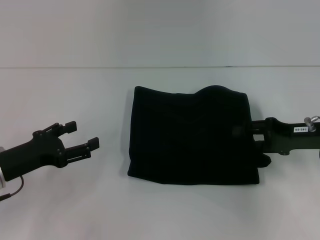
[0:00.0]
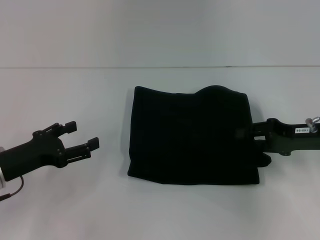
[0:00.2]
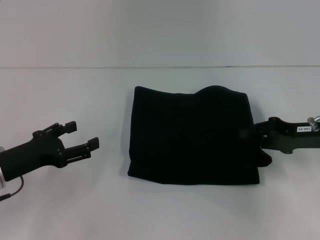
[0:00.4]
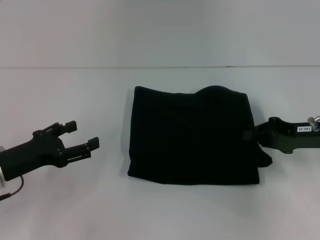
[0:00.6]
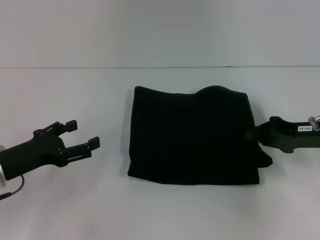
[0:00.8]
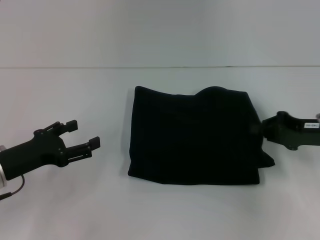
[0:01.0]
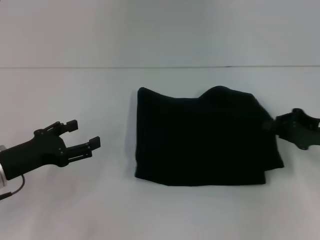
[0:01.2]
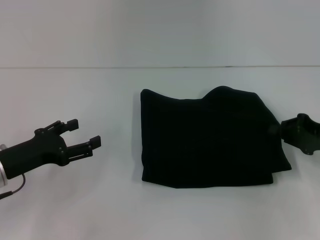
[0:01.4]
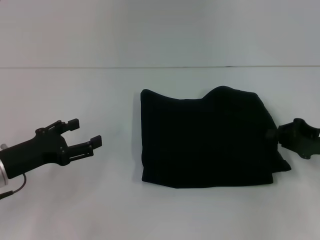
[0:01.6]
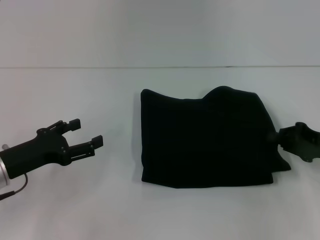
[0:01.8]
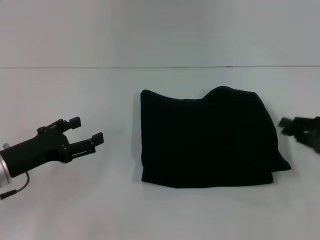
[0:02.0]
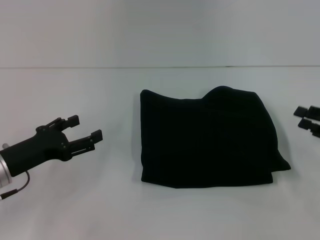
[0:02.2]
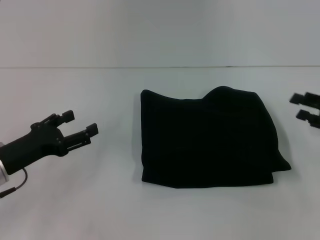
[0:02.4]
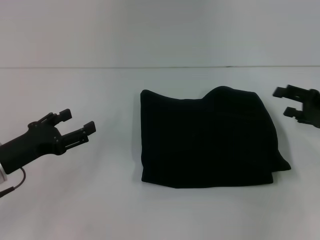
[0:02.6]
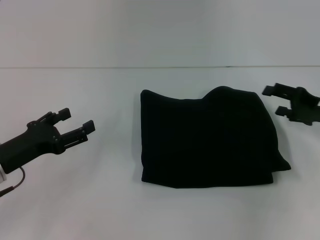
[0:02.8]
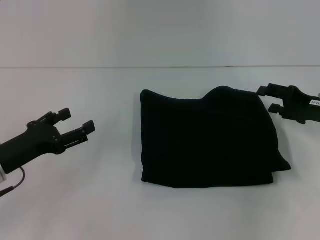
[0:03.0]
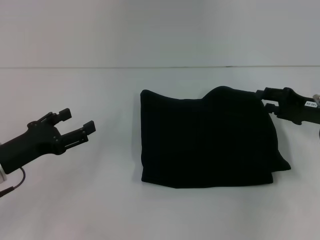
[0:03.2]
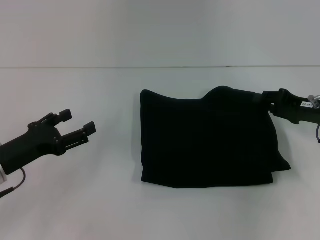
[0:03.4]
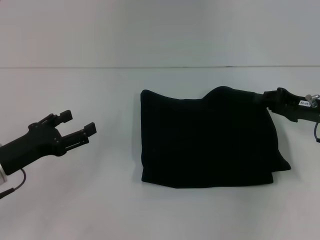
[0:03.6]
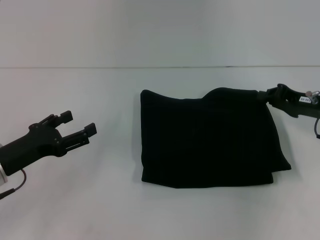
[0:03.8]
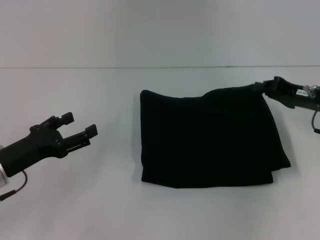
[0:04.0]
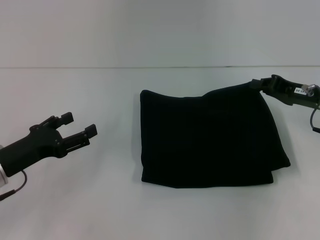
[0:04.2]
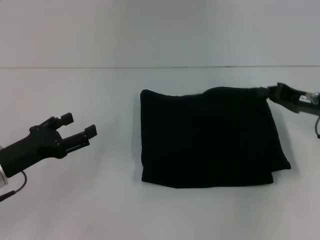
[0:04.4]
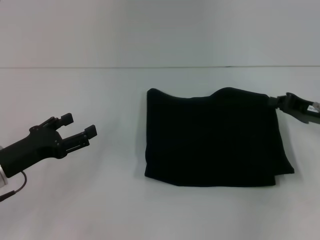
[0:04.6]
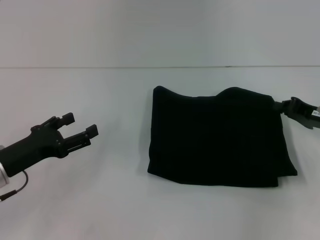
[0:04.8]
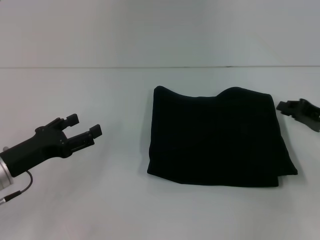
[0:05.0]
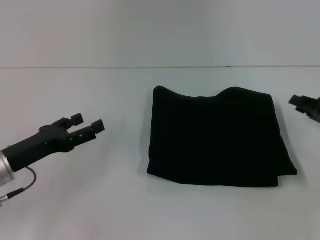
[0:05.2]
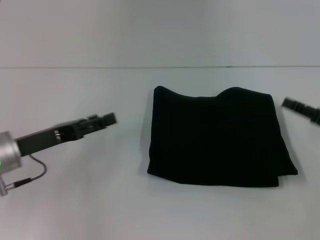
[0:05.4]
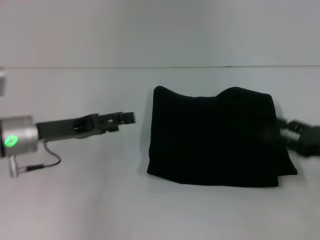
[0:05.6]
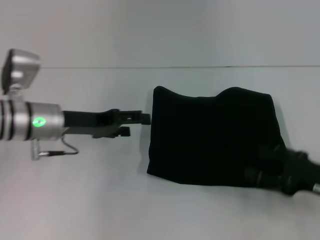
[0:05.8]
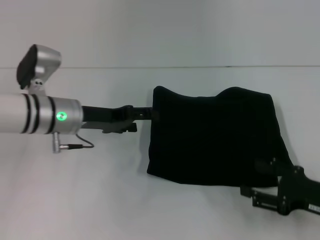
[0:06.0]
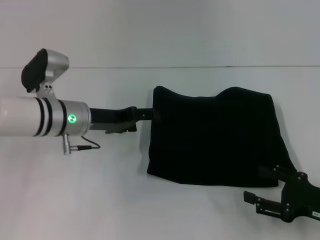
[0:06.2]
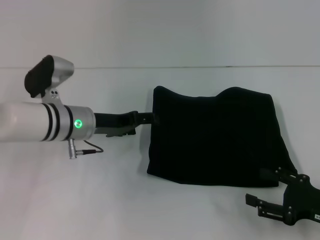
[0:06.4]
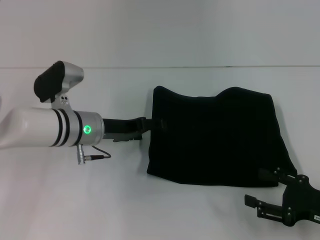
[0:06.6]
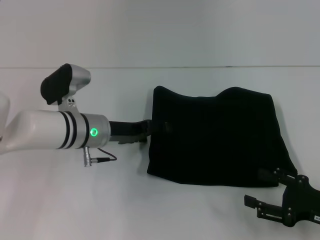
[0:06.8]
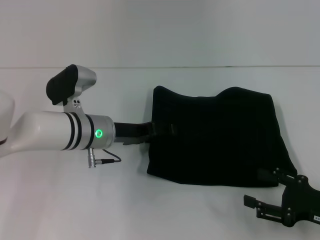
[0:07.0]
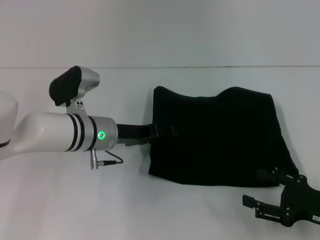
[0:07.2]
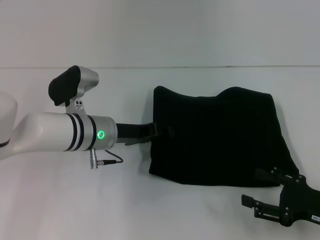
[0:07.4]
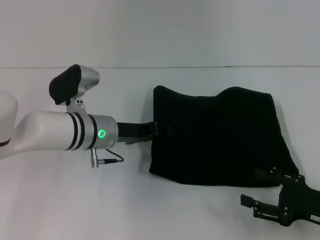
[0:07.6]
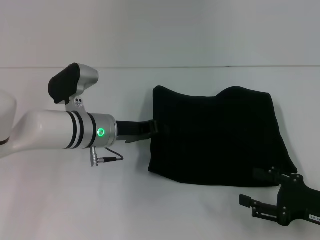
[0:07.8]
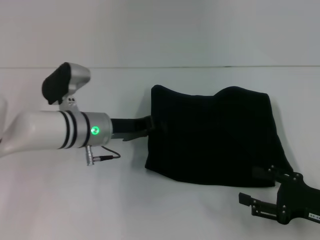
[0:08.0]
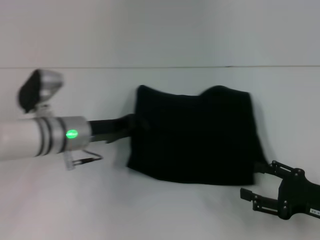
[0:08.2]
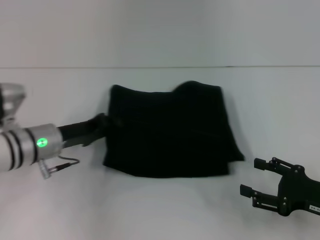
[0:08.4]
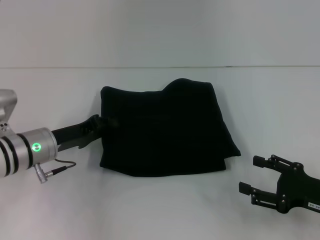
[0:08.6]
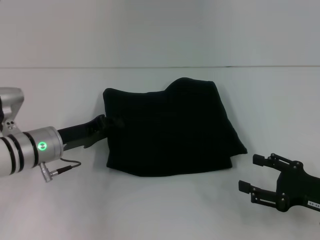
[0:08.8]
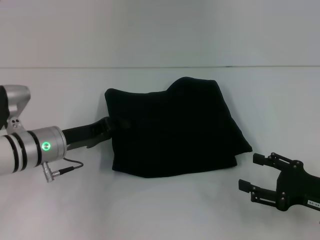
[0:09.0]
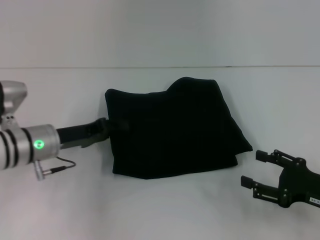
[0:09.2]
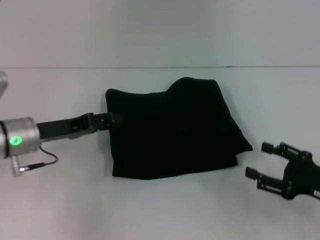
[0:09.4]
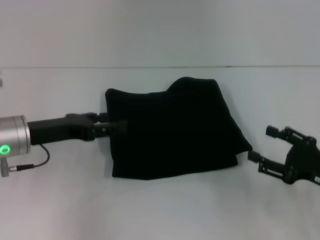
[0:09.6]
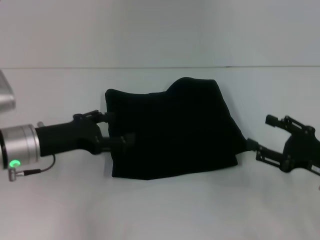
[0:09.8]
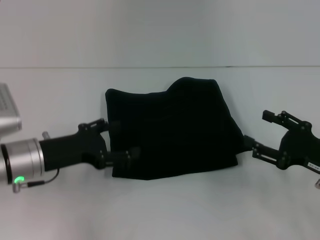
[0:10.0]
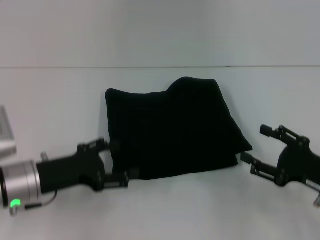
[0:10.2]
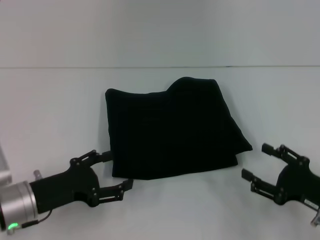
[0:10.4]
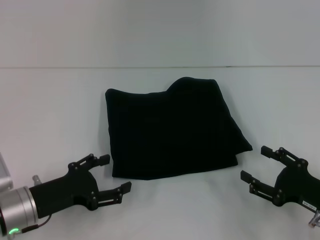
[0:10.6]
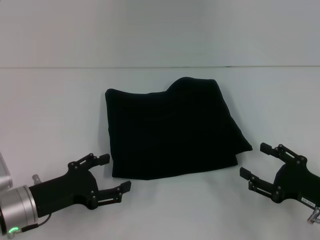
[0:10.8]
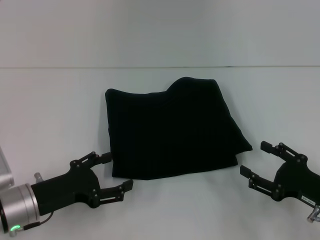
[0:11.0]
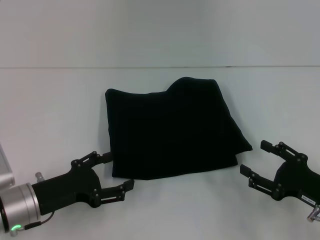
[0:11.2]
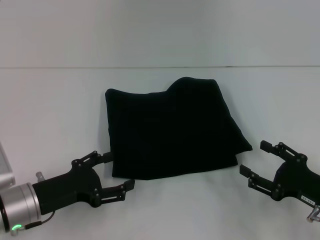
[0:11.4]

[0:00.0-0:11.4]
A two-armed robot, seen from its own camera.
0:00.0 to 0:01.4: The right gripper closes its fingers.
0:01.4 to 0:02.8: The right gripper opens.
0:02.8 to 0:04.2: The right gripper closes up.
0:04.2 to 0:05.6: The right gripper travels backward by approximately 10 cm, and opens up. The left gripper moves forward, about 5 cm.
0:05.6 to 0:07.2: The right gripper is displaced backward by about 5 cm, and opens. Meanwhile the left gripper heads to the right, covering approximately 10 cm.
0:07.2 to 0:08.6: The left gripper goes about 10 cm to the left, and closes its fingers.
0:08.6 to 0:10.0: The left gripper opens its fingers.
0:10.0 to 0:11.4: The left gripper is displaced backward by some 5 cm; the right gripper shifts by approximately 5 cm.

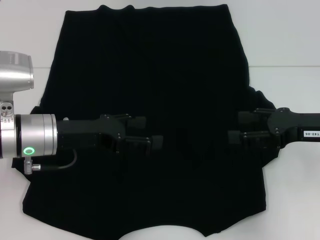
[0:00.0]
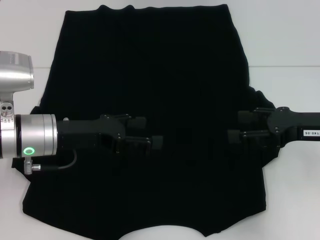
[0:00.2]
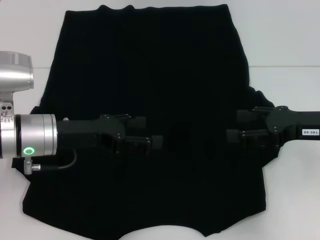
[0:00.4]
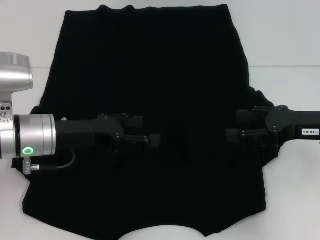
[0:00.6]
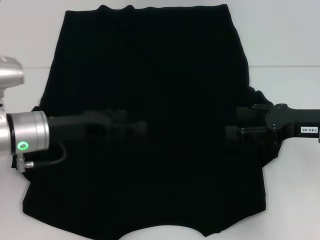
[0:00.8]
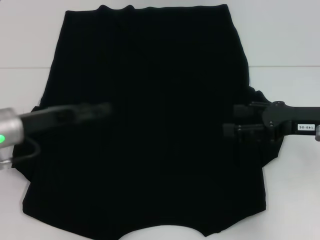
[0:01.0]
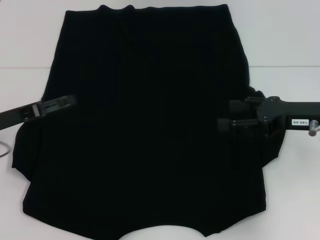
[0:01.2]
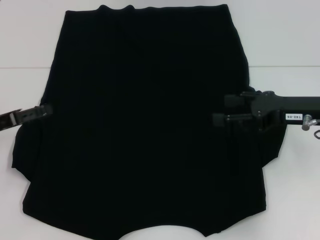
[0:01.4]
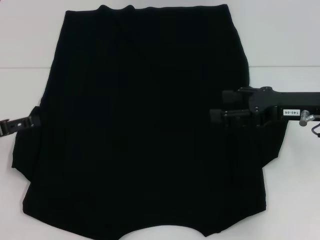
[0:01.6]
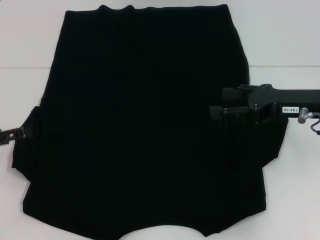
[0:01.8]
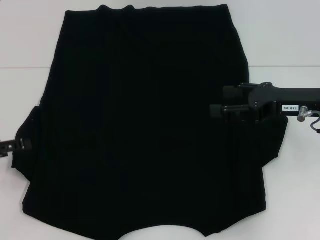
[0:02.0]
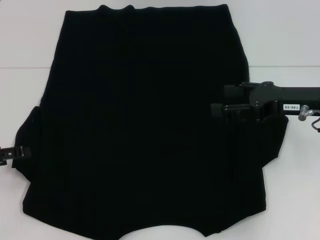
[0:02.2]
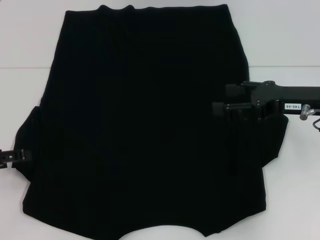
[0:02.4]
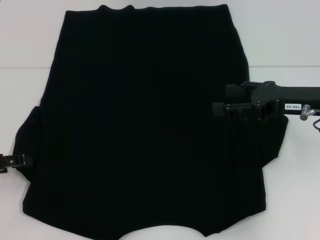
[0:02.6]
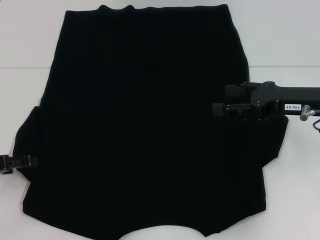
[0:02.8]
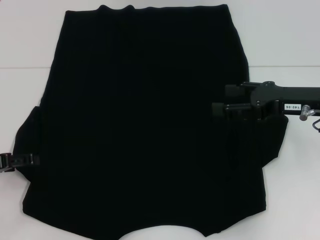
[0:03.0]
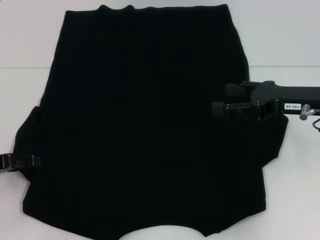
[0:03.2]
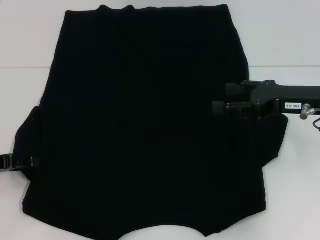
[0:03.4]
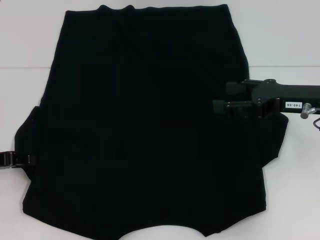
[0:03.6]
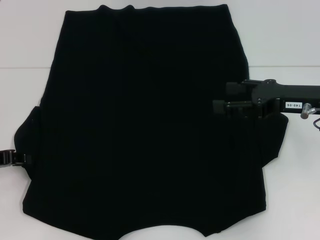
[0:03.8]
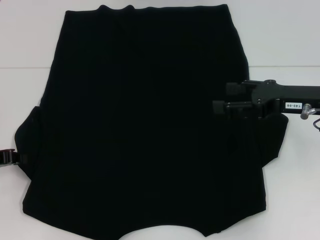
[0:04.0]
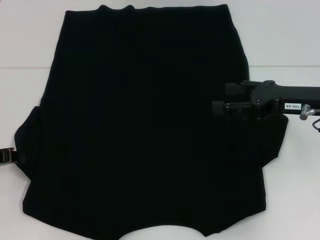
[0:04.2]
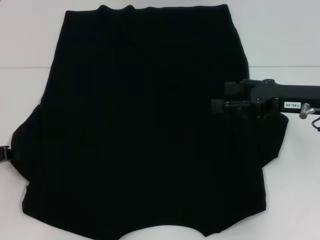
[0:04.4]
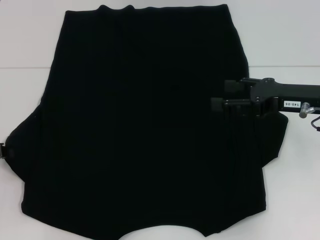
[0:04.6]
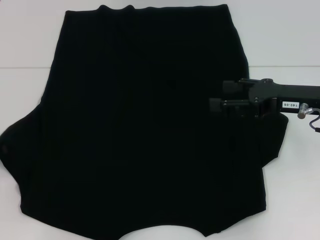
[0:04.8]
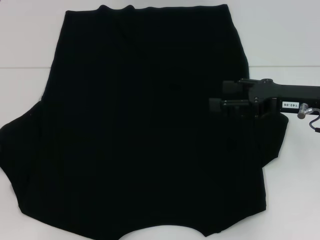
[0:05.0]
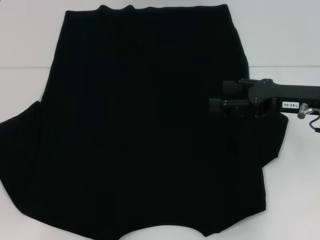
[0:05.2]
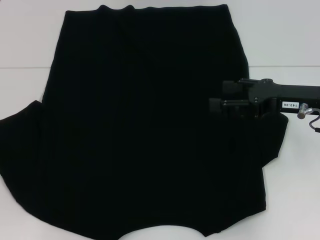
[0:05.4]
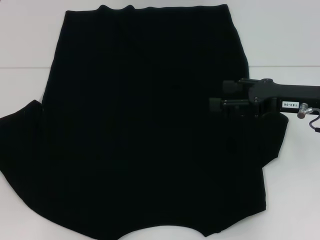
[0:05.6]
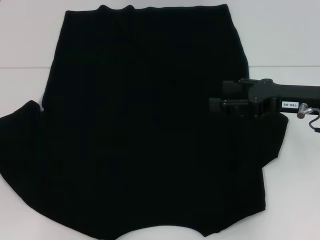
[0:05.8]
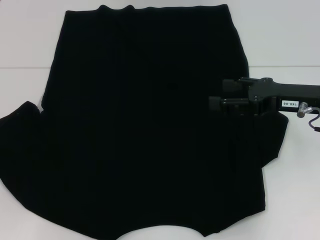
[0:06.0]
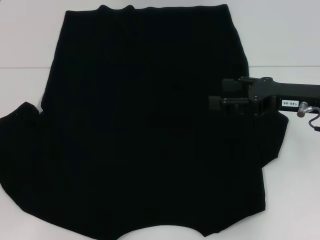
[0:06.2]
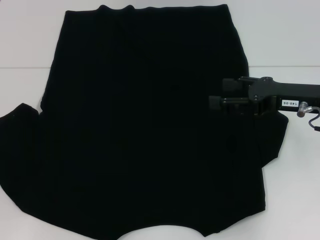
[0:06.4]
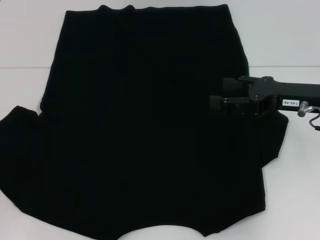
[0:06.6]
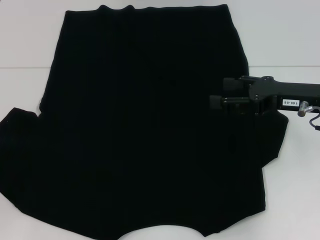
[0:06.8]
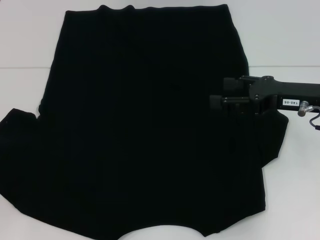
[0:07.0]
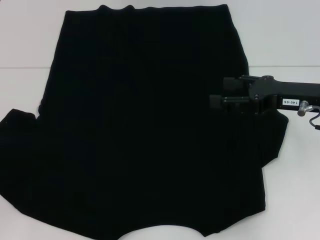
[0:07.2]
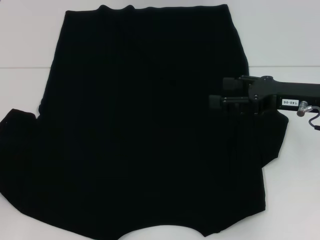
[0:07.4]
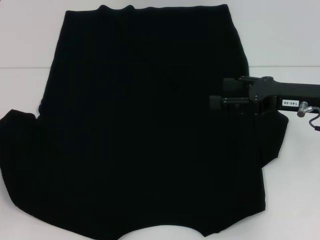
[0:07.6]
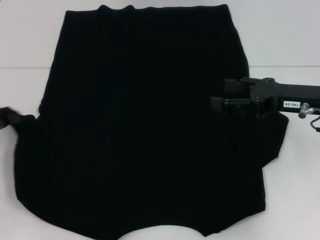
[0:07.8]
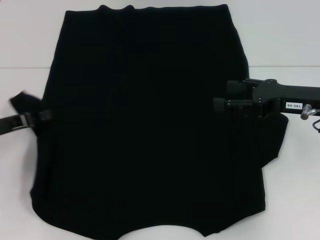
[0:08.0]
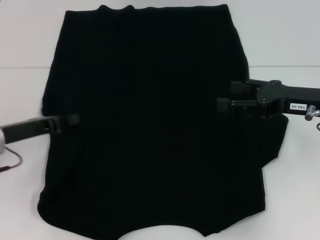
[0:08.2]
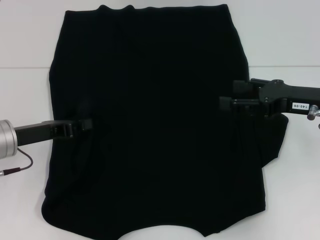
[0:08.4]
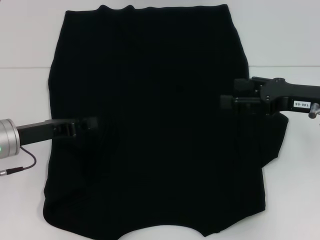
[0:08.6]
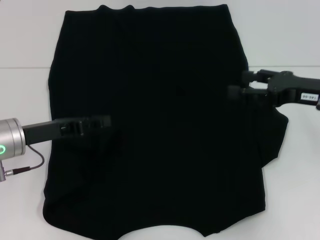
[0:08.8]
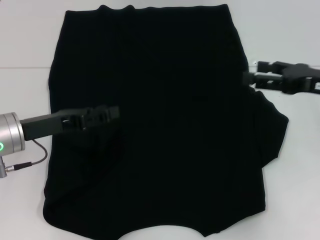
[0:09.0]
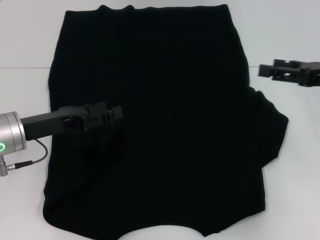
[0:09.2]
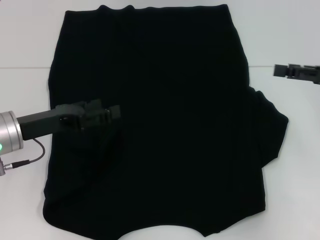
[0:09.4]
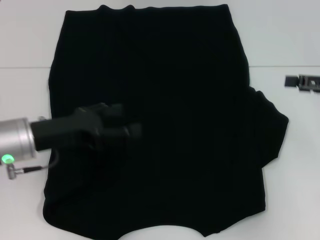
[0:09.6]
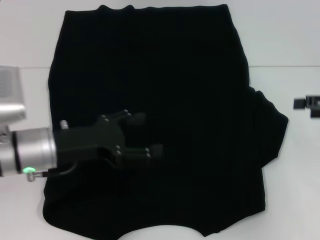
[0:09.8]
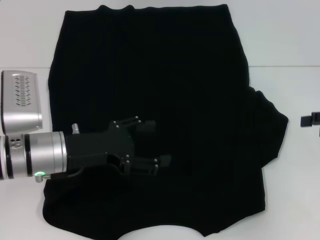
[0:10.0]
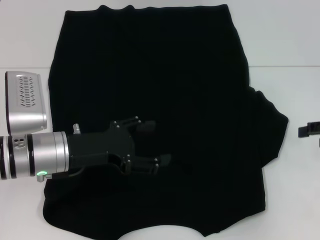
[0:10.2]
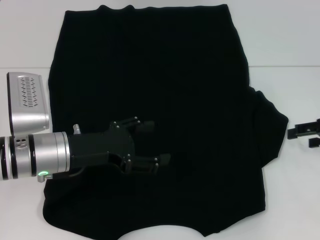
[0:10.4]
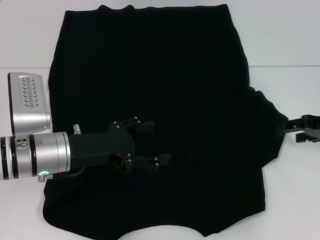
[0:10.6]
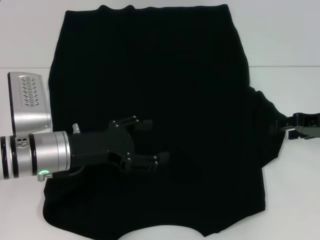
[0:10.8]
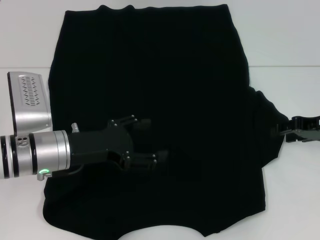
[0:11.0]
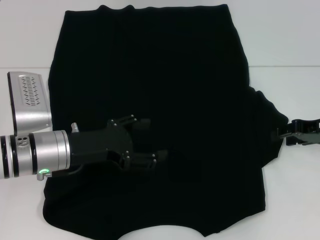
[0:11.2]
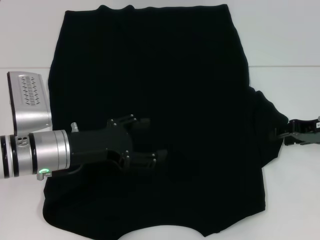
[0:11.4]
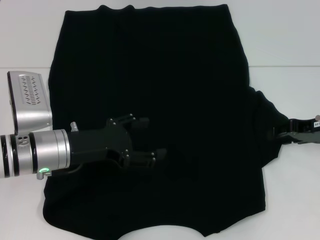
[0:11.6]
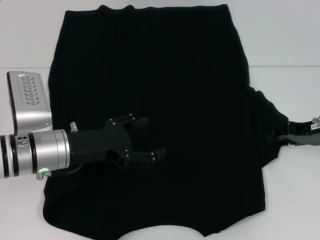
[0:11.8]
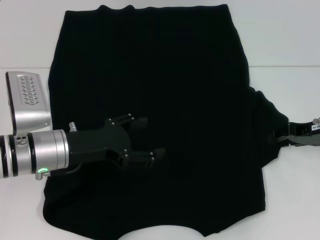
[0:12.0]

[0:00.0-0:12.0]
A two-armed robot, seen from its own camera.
Step, 0:00.0 to 0:08.8: Fold the bottom left sleeve with your left hand.
0:00.0 to 0:01.6: The left gripper goes about 15 cm to the left.
0:01.6 to 0:03.0: The grippers move only a little.
0:03.0 to 0:04.4: The left gripper closes its fingers.
0:04.4 to 0:07.6: There are only small adjustments of the grippers.
0:07.6 to 0:09.0: The left gripper goes some 15 cm to the right, and opens its fingers.
0:09.0 to 0:10.4: The two grippers go roughly 5 cm to the right. The left gripper opens its fingers.
0:10.4 to 0:12.0: The right gripper closes up.
